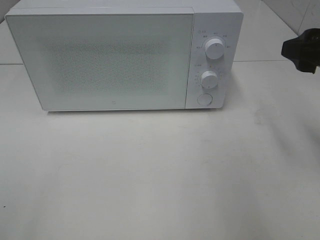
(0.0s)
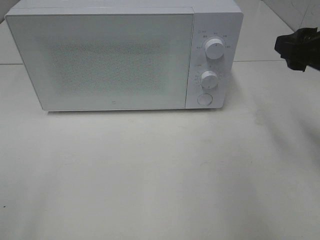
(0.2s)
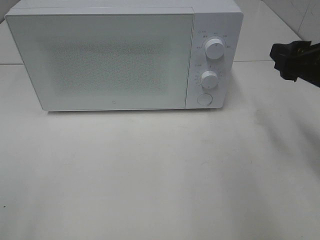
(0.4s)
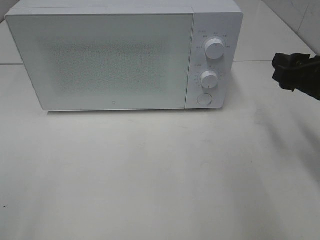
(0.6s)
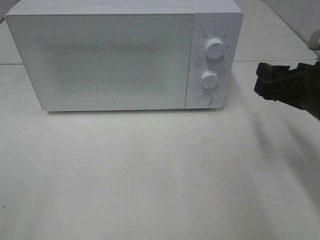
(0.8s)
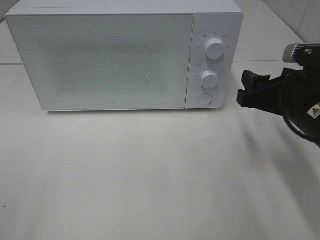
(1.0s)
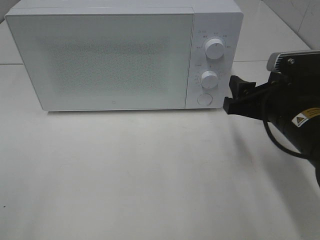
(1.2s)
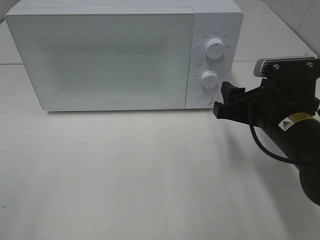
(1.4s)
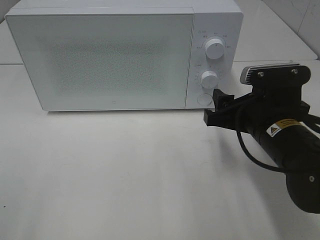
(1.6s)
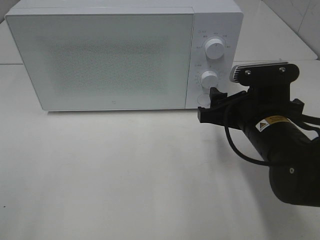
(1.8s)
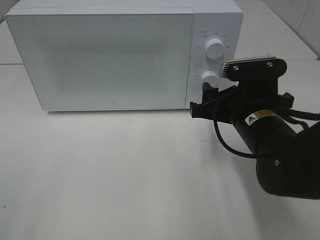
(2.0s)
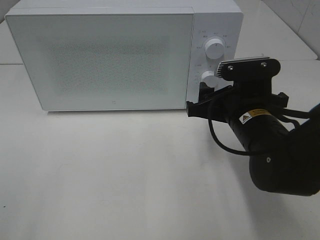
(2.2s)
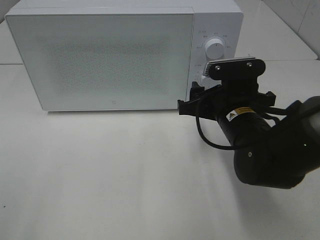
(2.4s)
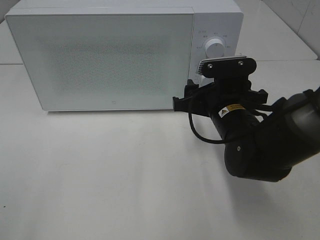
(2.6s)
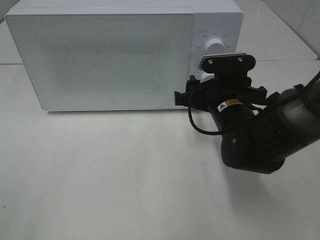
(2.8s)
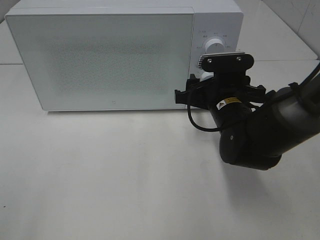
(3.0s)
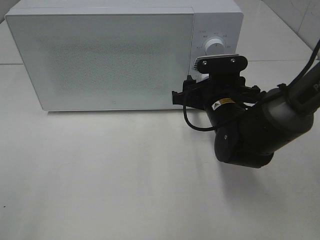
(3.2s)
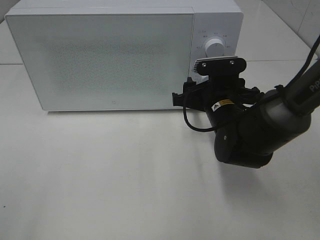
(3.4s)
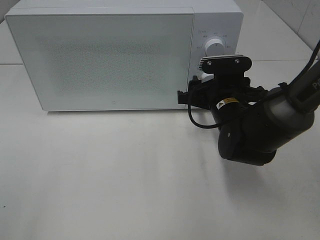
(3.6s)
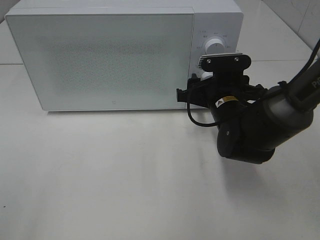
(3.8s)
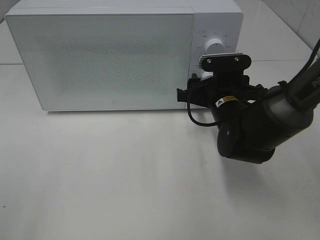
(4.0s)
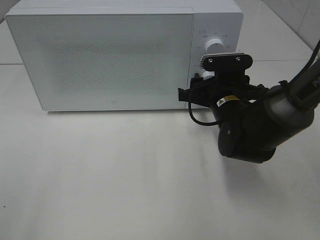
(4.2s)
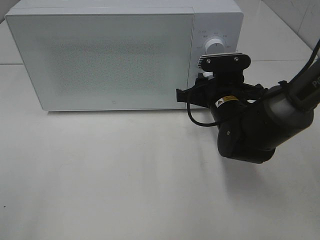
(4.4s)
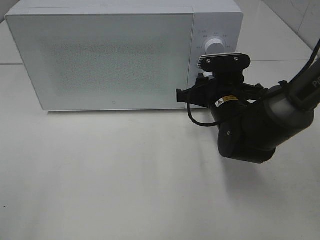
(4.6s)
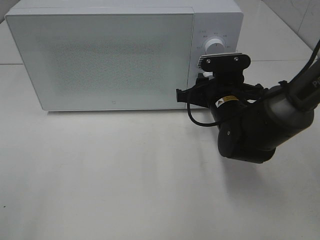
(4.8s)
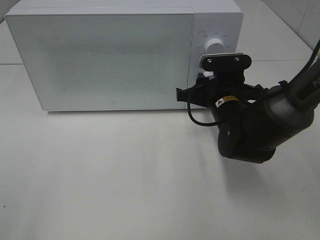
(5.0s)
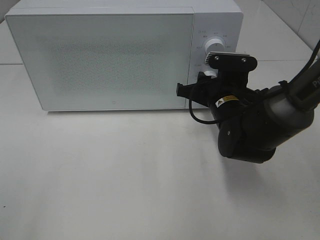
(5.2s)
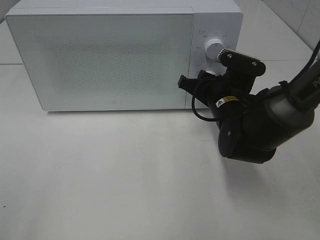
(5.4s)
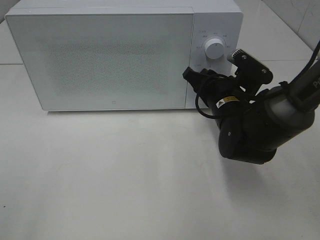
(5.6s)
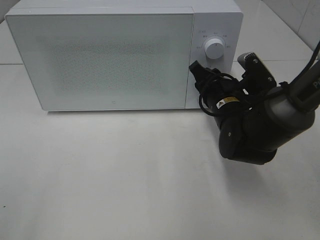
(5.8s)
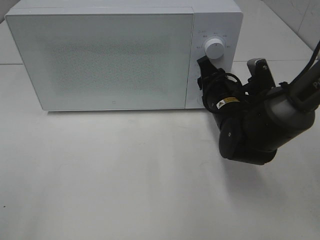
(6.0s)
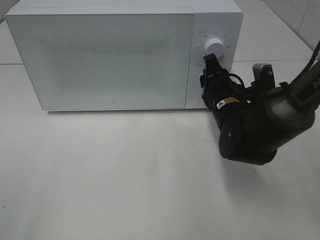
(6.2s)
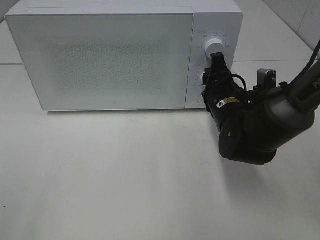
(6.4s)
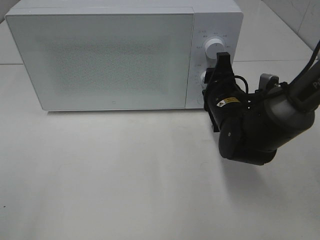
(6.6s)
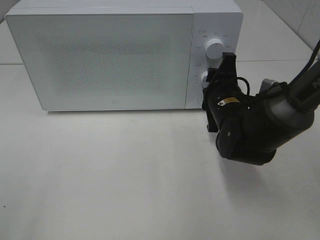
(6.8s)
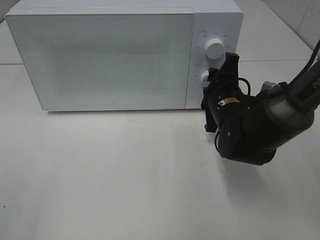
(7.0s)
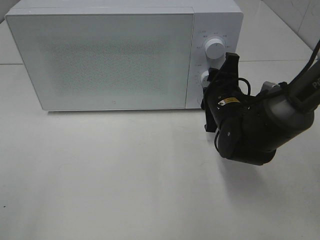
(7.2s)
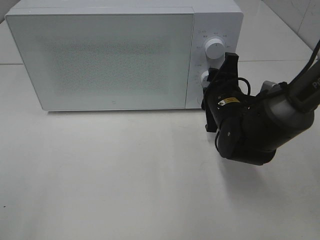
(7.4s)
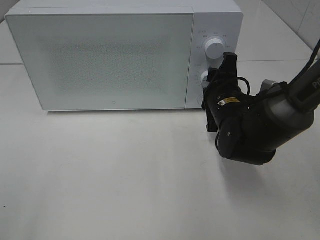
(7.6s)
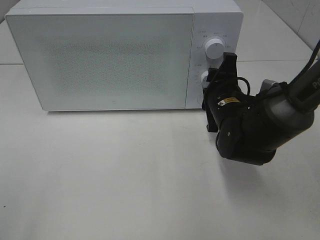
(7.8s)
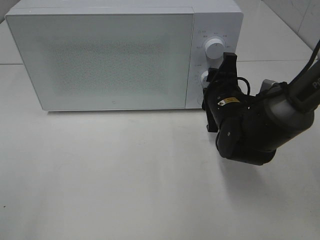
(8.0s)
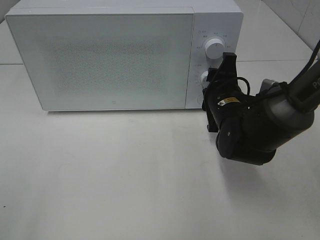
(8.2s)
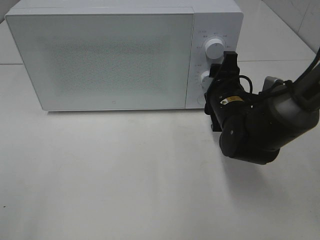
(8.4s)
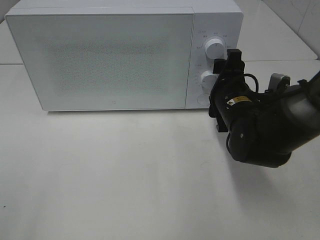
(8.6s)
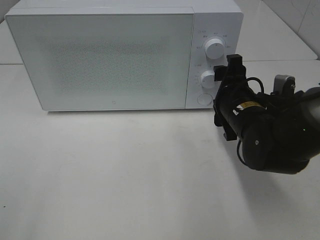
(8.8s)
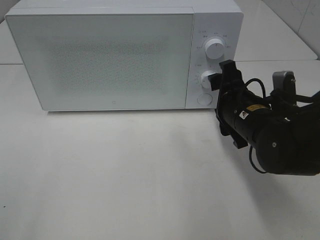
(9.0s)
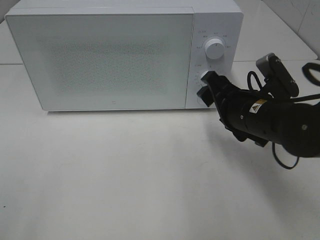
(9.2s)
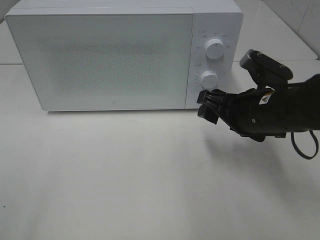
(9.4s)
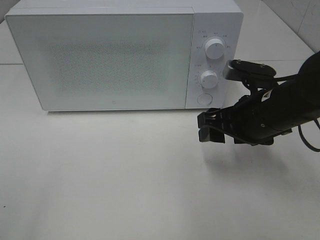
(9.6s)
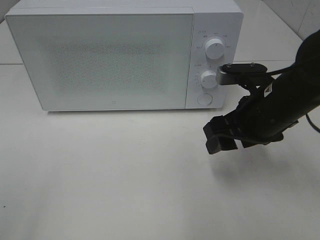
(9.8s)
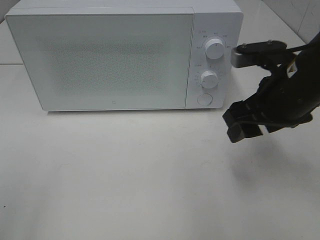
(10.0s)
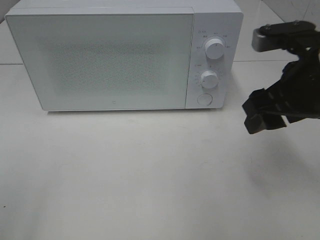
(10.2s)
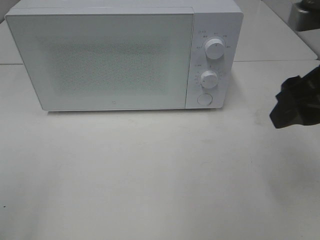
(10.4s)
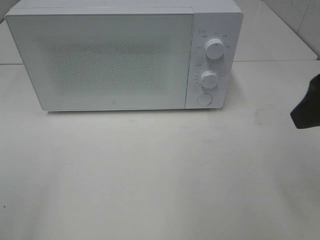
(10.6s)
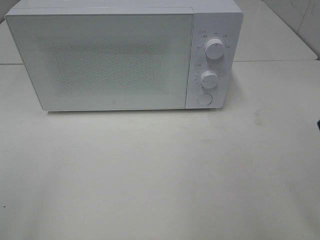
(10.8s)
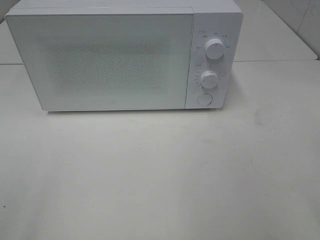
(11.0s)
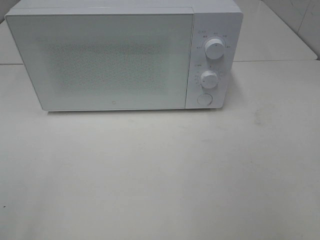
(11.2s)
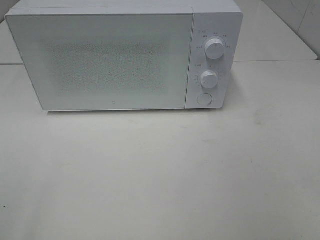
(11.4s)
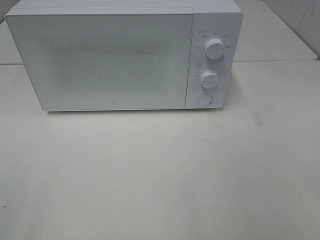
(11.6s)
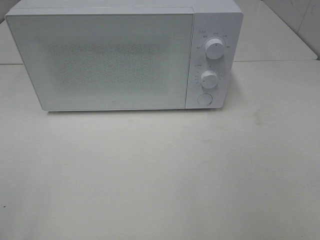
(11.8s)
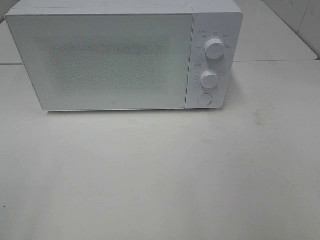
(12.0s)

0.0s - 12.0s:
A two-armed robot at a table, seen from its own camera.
Task of the whole recording: Heat the burger.
Step, 0.0s - 8.6s: Right hand: twist timer button.
0.0s - 1.6s: The right gripper moves downward and to the left, approximately 15 cm.
1.6s - 3.0s: The right gripper moves forward, approximately 10 cm.
3.0s - 4.4s: The grippers move only a little.
7.6s - 9.0s: The right gripper changes place by approximately 5 cm, and opens its fingers.
9.0s - 10.4s: The right gripper shifts approximately 20 cm upward and backward.
10.4s - 12.0s: The right gripper travels backward and to the right by approximately 20 cm.

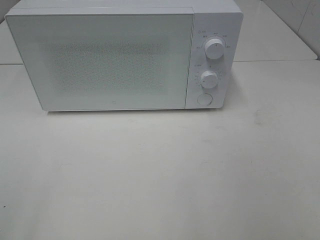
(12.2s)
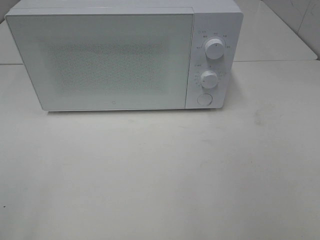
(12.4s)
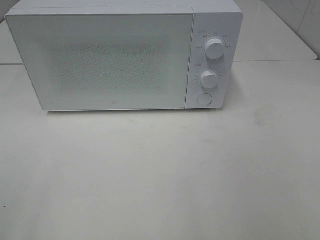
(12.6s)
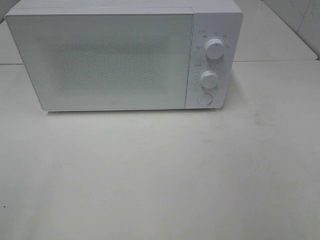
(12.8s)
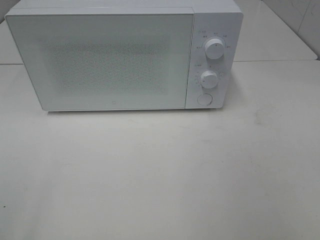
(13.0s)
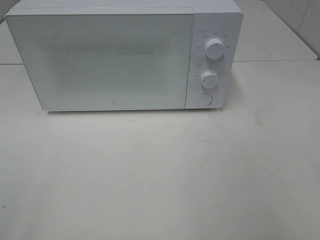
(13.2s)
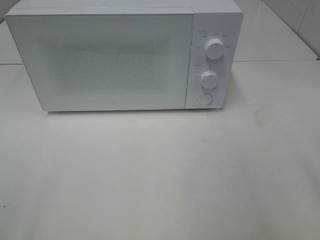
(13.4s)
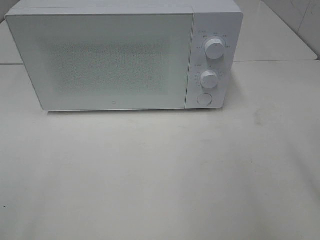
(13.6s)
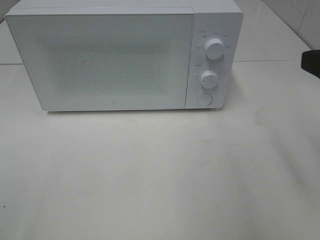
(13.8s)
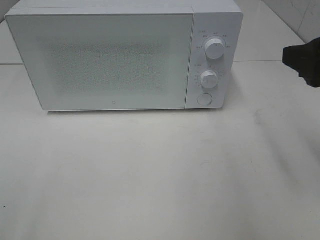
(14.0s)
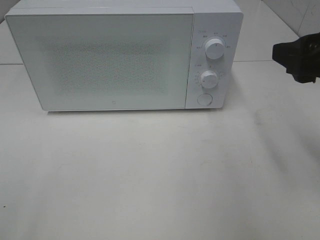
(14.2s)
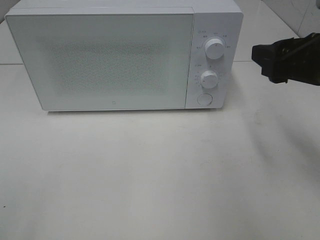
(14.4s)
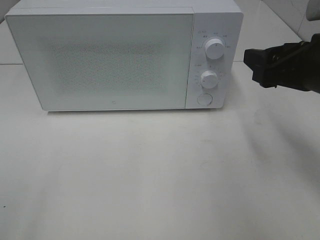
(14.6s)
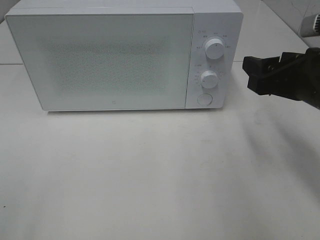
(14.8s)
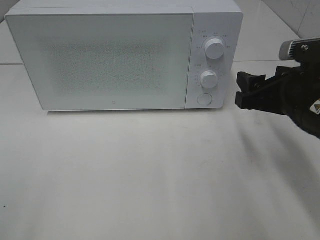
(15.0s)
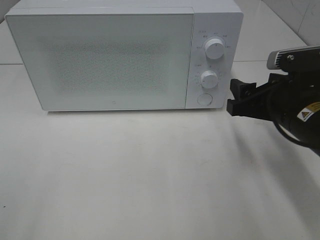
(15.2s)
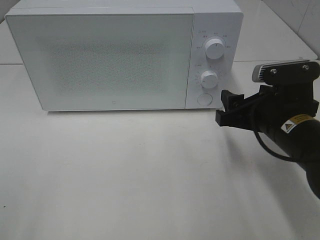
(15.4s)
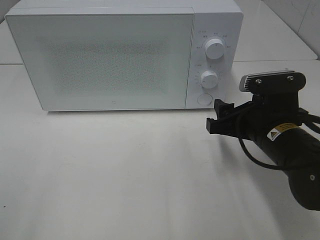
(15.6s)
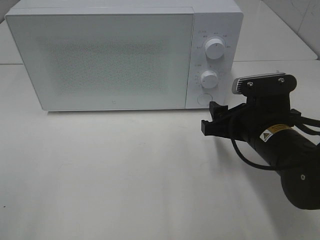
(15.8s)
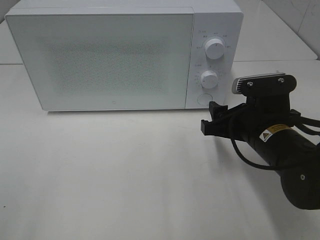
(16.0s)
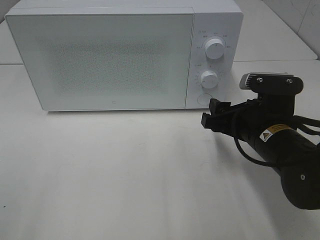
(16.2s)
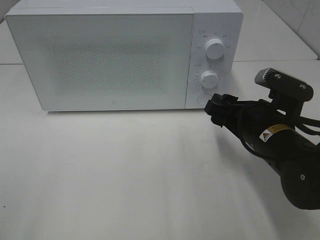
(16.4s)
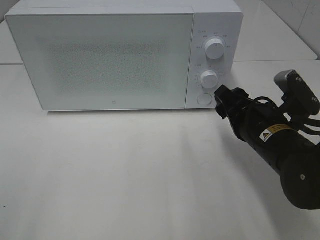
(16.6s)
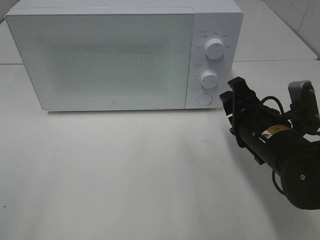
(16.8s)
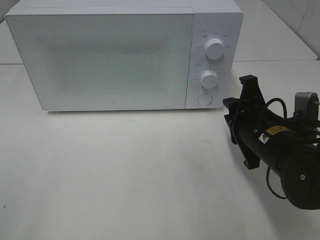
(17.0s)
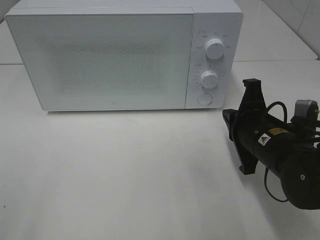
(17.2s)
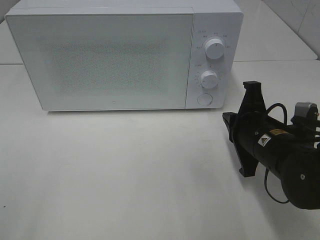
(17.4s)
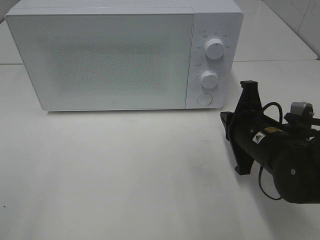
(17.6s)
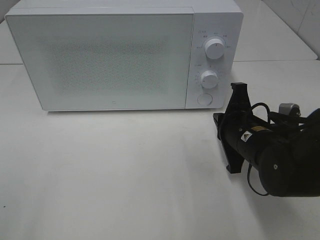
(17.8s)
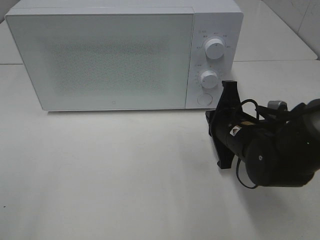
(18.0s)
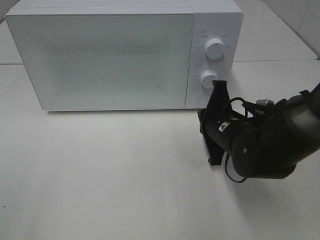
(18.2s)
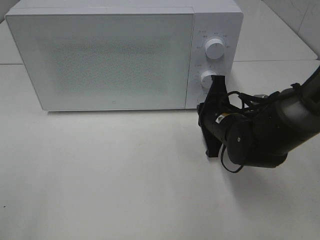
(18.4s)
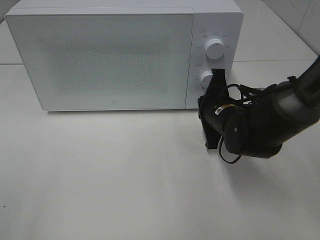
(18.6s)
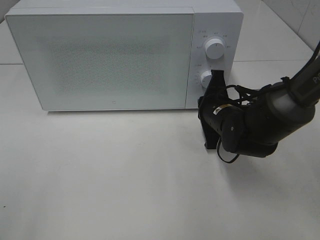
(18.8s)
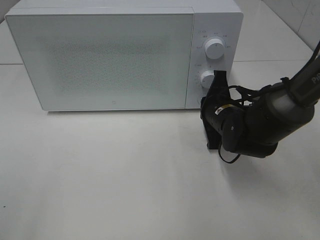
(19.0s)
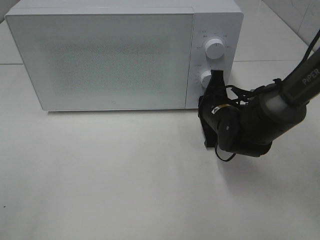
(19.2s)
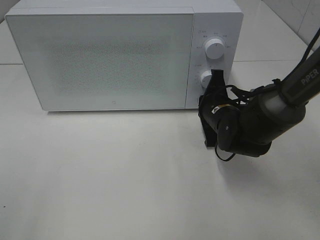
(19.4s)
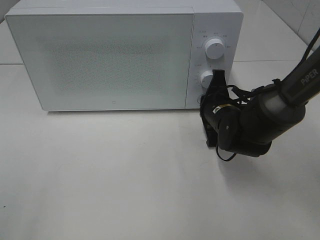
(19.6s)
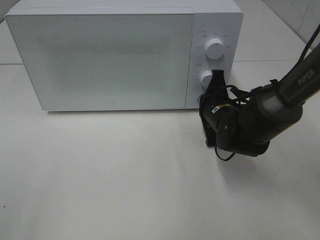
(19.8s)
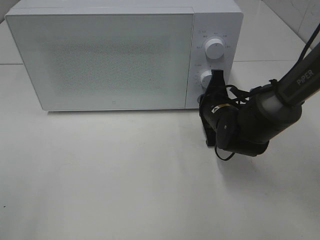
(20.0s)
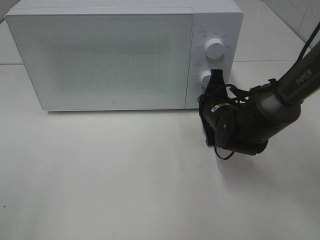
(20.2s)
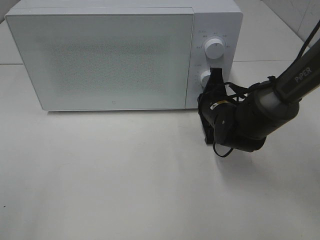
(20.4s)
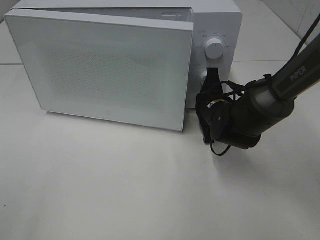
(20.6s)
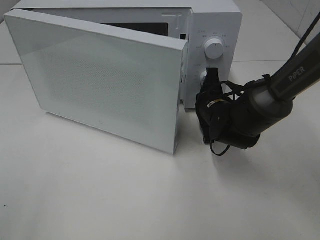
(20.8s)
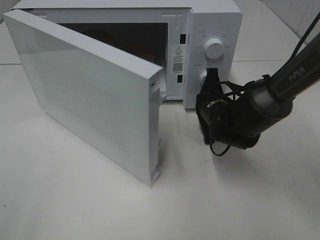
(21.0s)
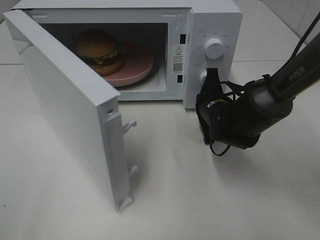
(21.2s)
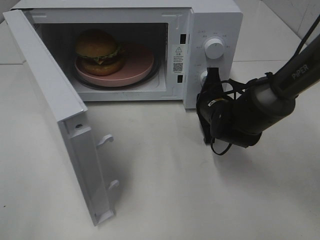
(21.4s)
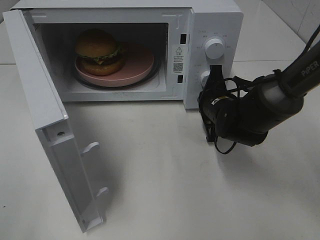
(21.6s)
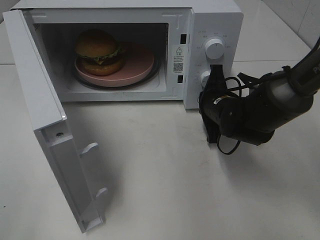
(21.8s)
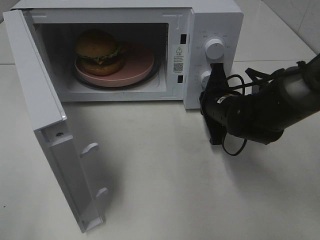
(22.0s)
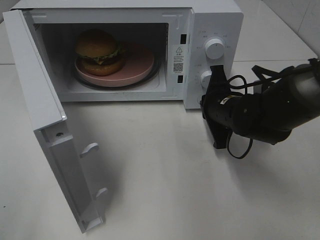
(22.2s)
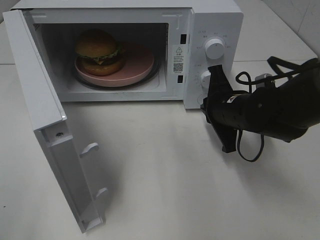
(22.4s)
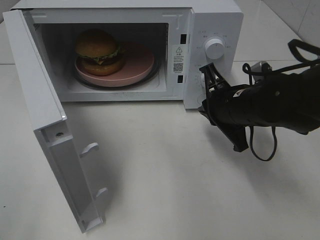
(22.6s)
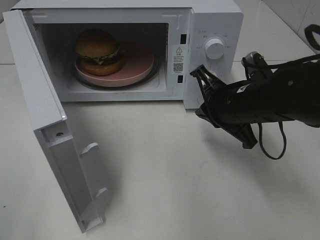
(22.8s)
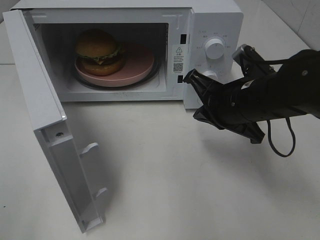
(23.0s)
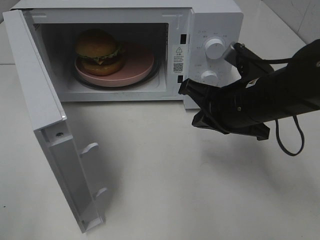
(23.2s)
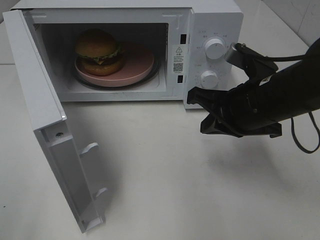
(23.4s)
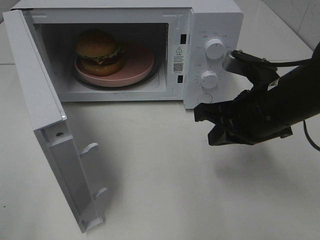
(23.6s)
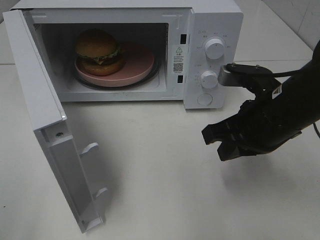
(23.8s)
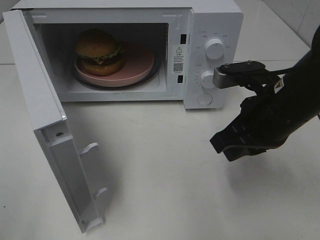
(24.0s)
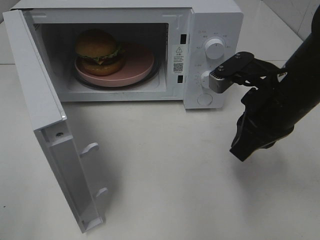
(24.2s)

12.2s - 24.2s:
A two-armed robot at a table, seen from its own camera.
Task of the whole recording: Heat the burger.
Step, 12.2s - 22.2s: Right hand: press the switch.
12.2s - 13.8s: The right gripper is displaced forward by about 15 cm.
13.8s - 15.2s: The right gripper is displaced downward and forward by some 15 cm.
15.2s - 16.6s: The right gripper shifts by some 5 cm.
16.6s - 18.2s: The right gripper shifts some 5 cm forward, and closes its fingers.
18.2s - 19.8s: The right gripper moves forward, some 5 cm.
21.2s - 22.6s: The right gripper goes about 10 cm upward and backward.
22.6s - 24.2s: The right gripper goes roughly 10 cm upward and backward.
